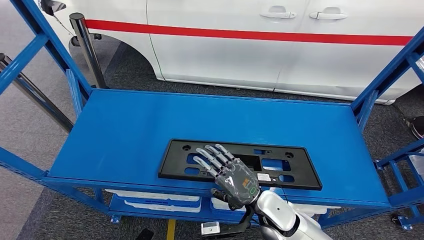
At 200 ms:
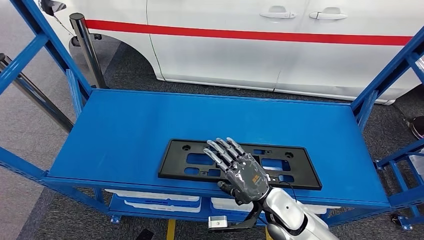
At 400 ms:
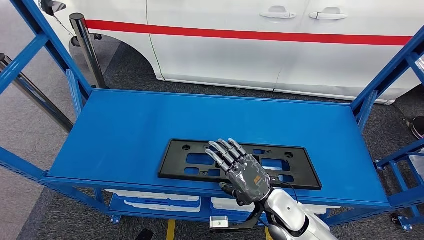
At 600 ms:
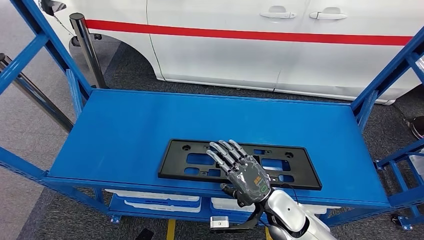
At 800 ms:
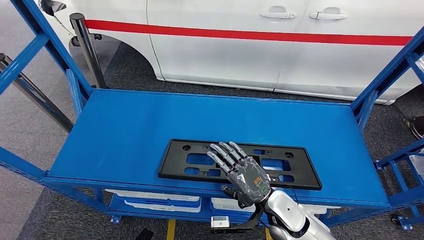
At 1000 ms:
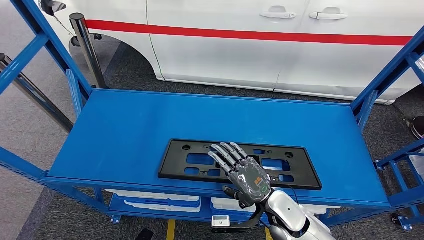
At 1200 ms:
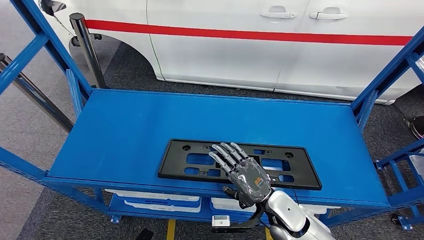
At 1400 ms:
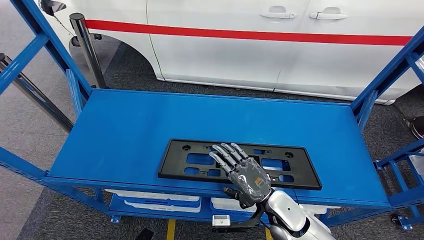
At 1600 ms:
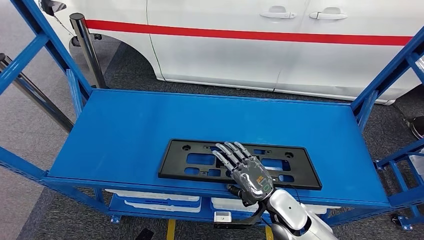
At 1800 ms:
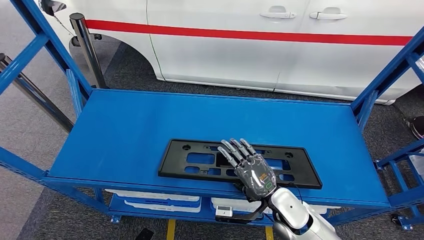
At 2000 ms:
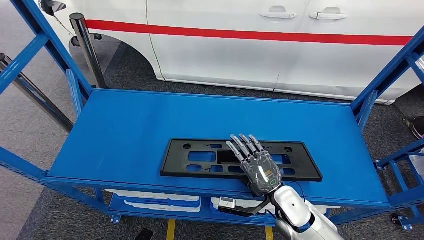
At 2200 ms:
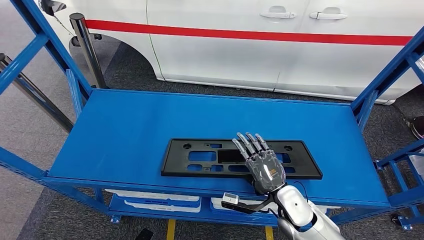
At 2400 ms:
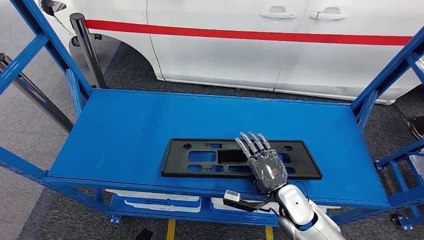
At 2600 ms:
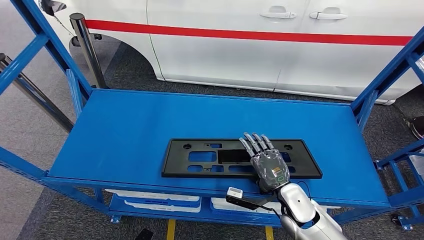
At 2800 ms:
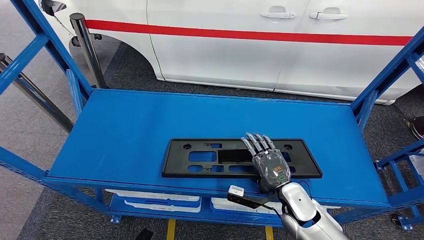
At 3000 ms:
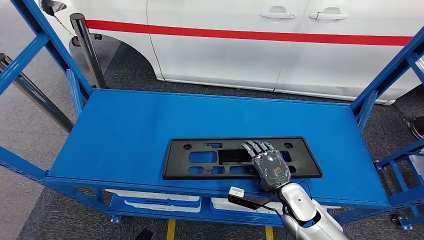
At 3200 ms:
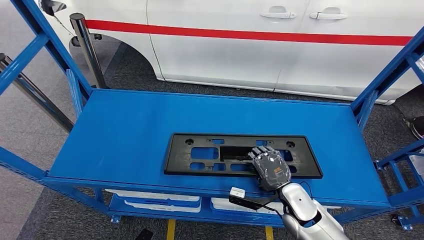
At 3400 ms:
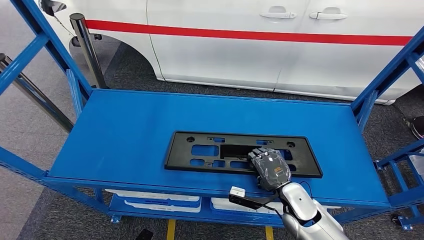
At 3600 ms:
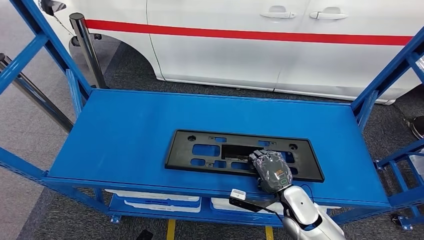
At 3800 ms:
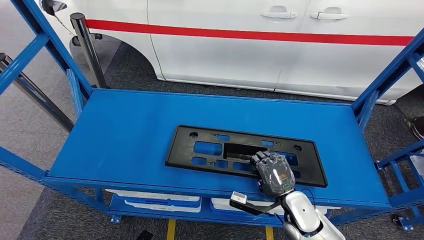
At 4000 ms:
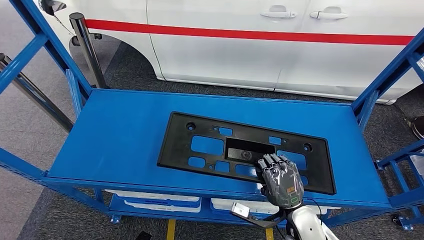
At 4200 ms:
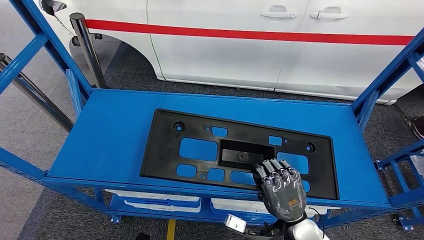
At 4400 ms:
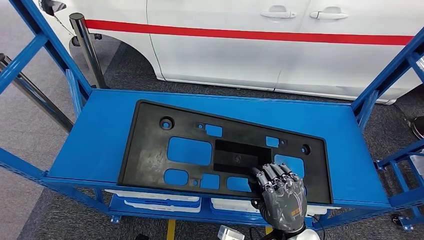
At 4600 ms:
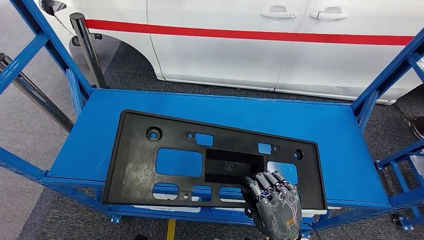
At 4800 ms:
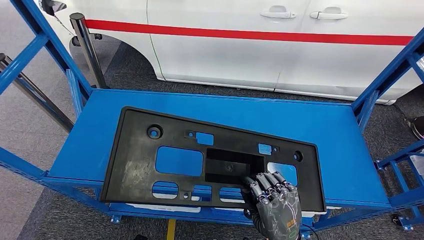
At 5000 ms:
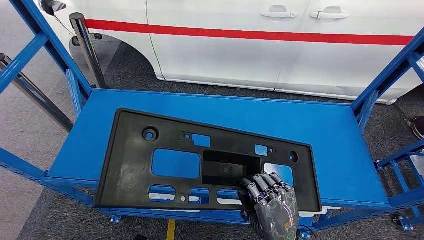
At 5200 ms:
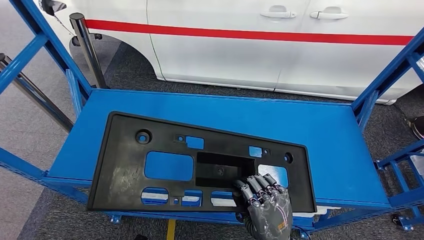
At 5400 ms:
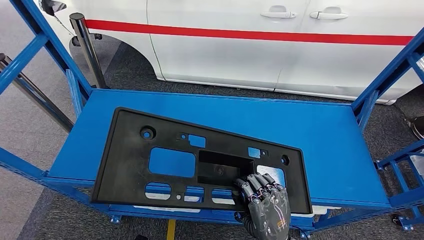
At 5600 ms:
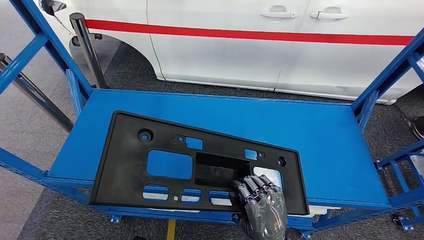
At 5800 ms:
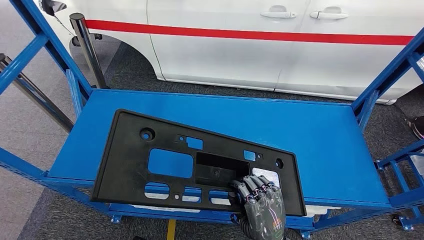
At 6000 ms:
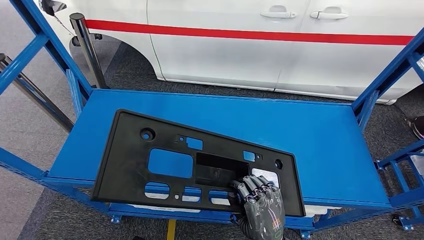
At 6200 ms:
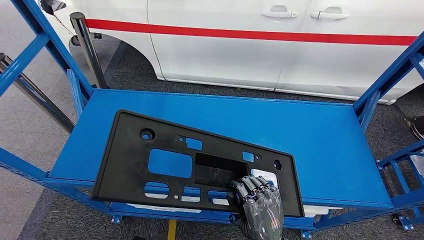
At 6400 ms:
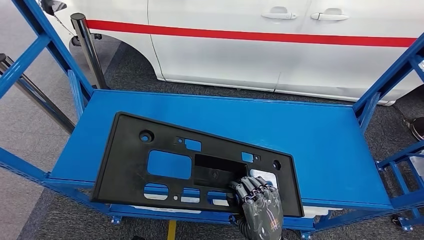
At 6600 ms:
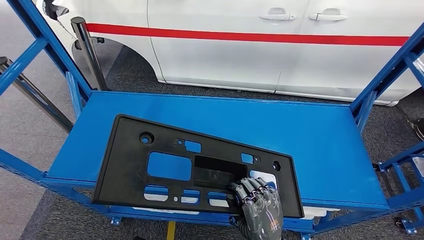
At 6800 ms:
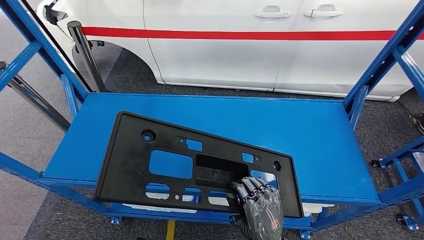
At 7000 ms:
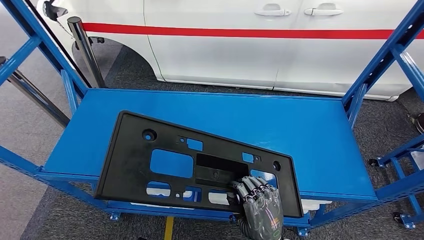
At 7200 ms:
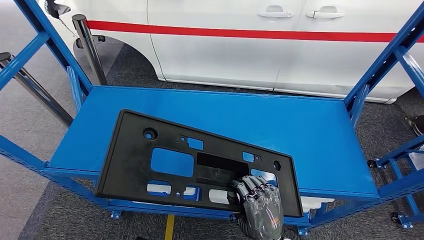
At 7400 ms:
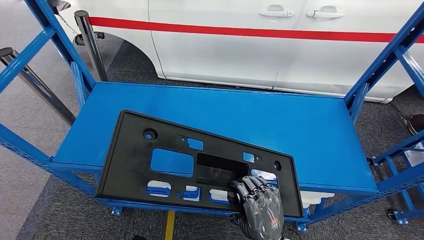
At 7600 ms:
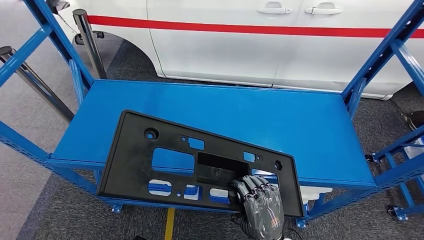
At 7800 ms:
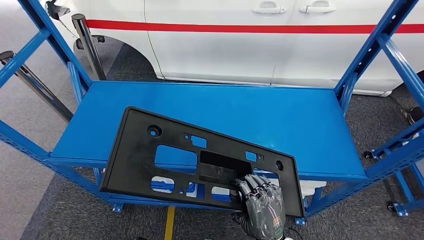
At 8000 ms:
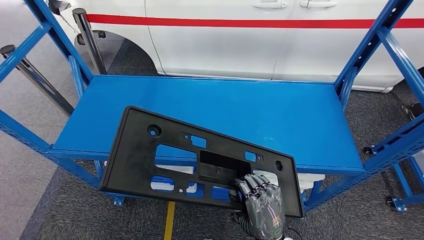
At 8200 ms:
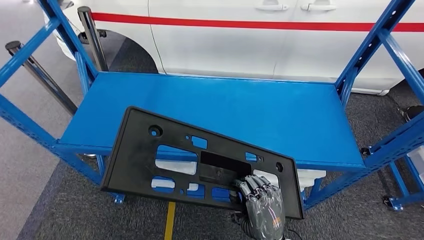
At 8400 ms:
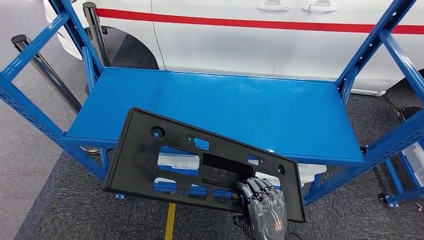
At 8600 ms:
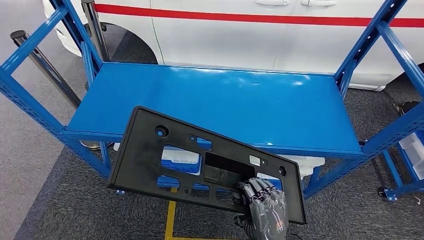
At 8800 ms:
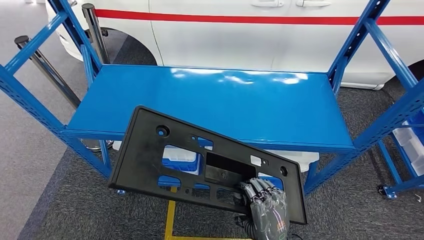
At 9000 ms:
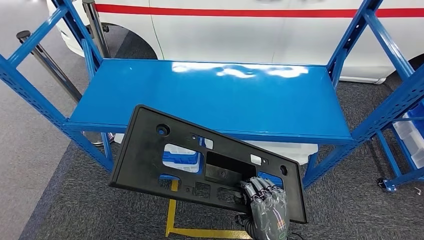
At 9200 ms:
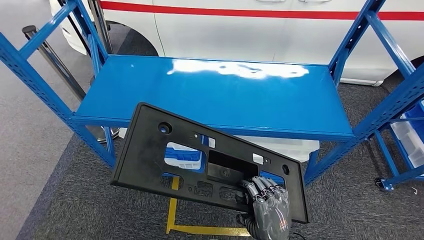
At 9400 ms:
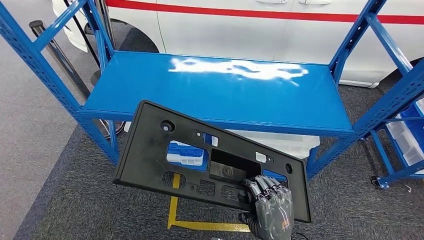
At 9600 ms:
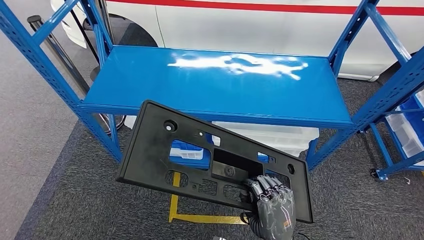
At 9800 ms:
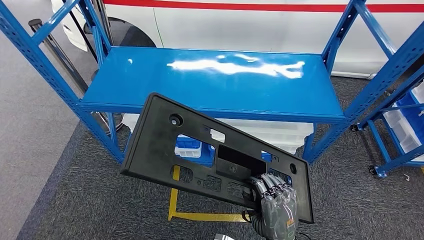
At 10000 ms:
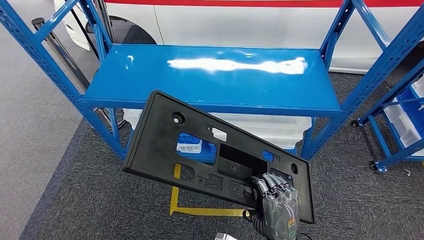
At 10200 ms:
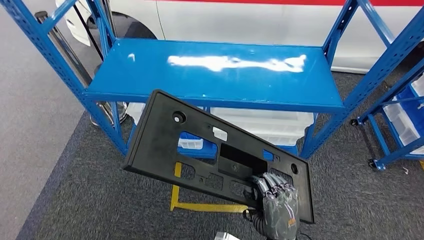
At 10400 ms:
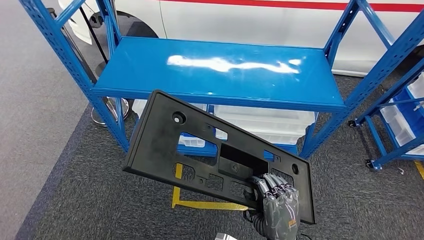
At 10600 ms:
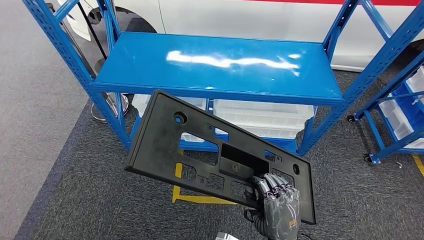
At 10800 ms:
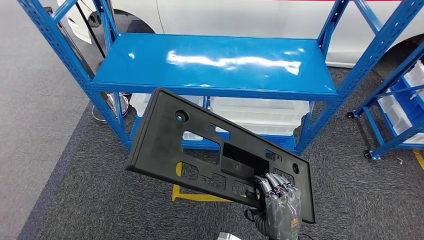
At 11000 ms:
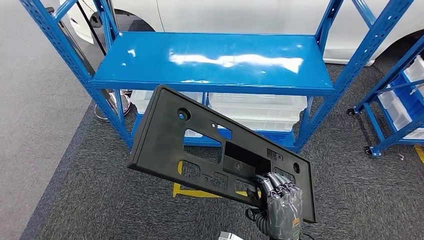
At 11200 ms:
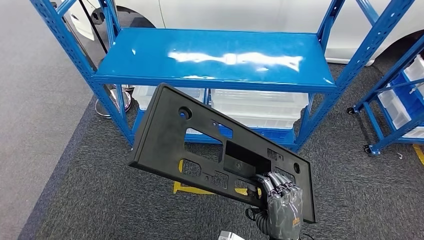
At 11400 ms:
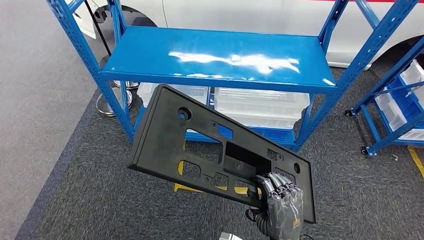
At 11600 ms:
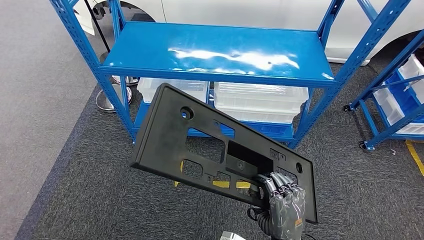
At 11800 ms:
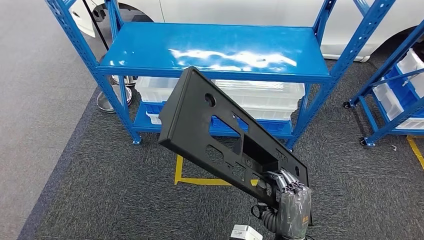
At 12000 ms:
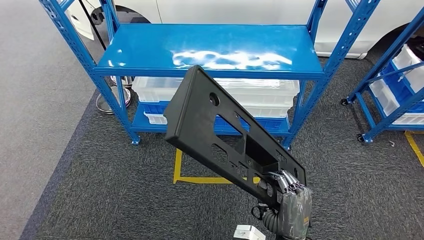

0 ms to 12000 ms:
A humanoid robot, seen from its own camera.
Step, 0 ms to 5200 ms: Pick up the large material from the shelf.
0 ms to 1600 ms: The hands stay close to where they were, moving slightly.
1600 ms to 3000 ms: The right hand moves about 5 cm.
3000 ms to 4400 ms: The right hand is displaced backward and upward by about 10 cm.
4400 ms to 6000 ms: The right hand changes place by about 5 cm.

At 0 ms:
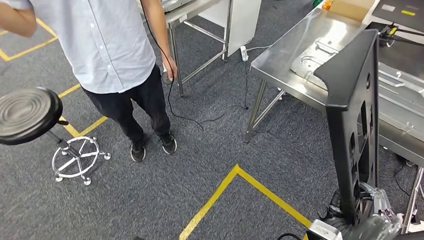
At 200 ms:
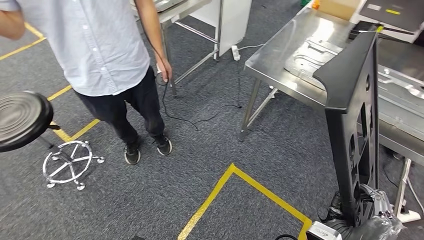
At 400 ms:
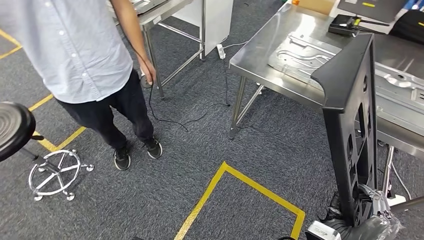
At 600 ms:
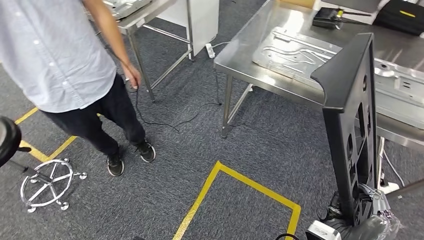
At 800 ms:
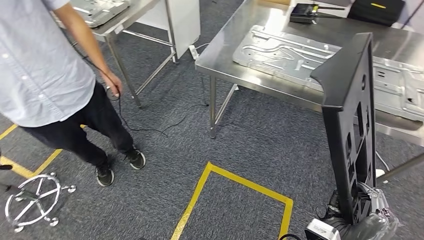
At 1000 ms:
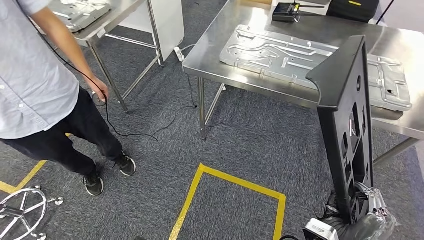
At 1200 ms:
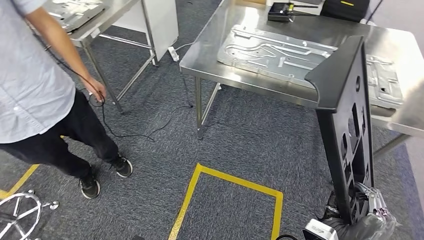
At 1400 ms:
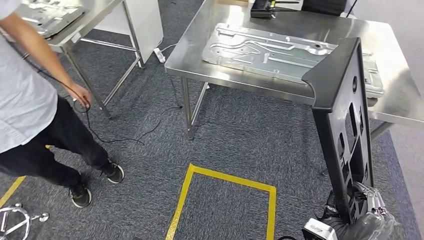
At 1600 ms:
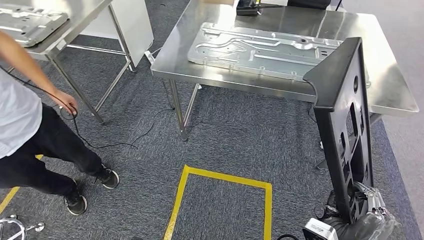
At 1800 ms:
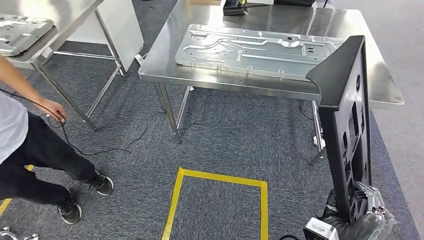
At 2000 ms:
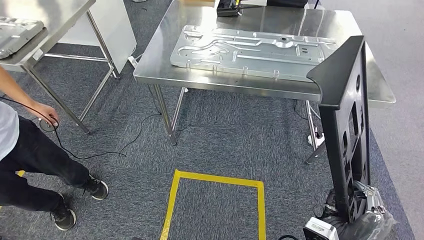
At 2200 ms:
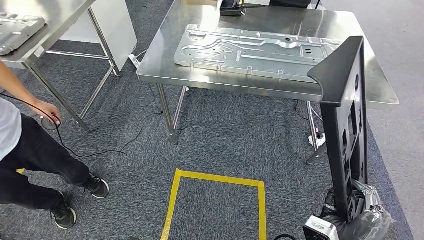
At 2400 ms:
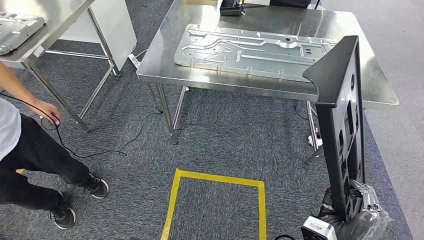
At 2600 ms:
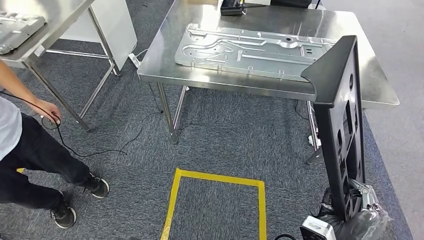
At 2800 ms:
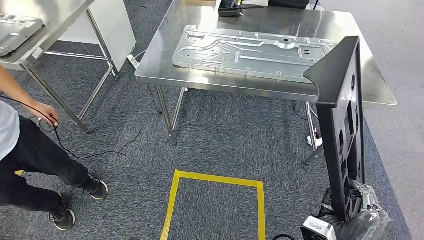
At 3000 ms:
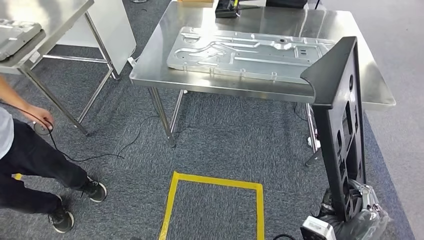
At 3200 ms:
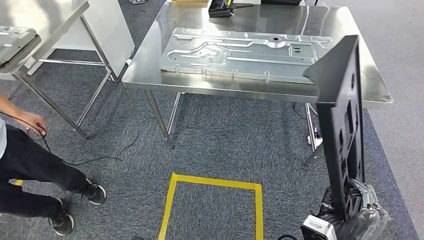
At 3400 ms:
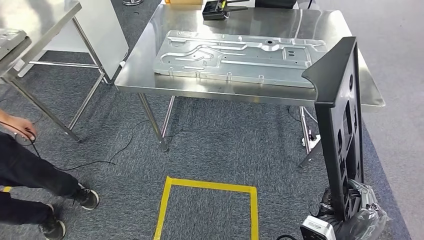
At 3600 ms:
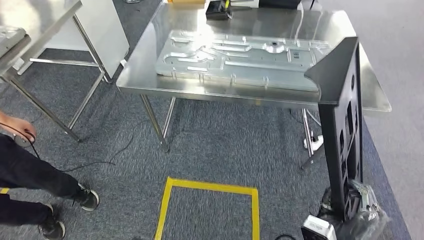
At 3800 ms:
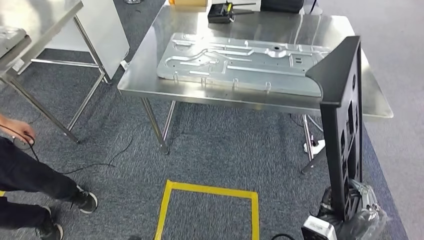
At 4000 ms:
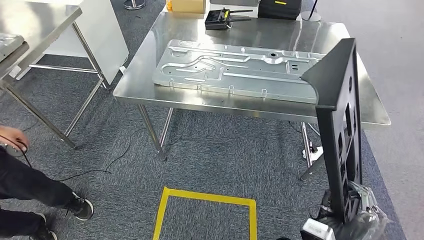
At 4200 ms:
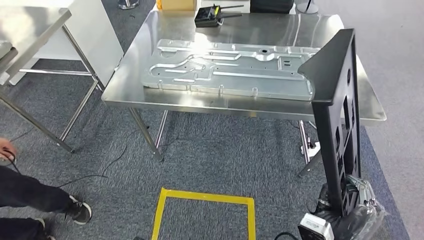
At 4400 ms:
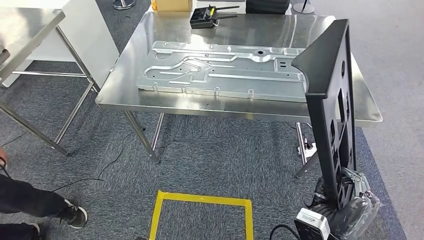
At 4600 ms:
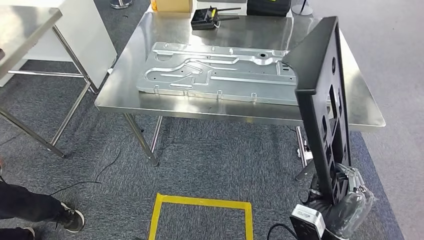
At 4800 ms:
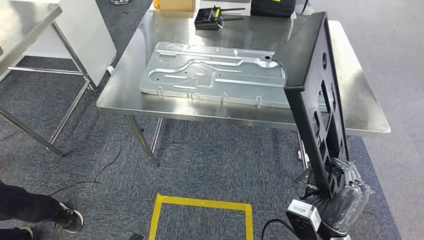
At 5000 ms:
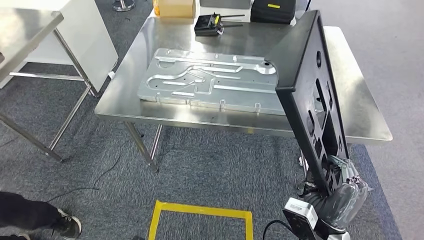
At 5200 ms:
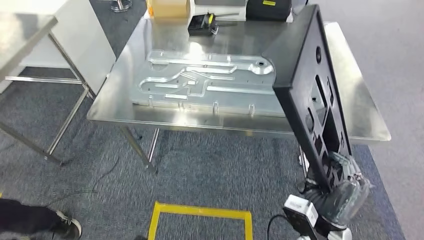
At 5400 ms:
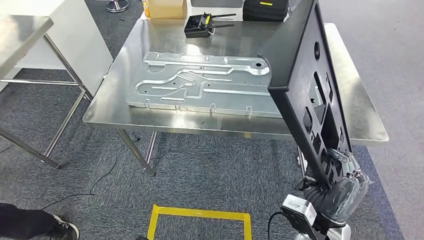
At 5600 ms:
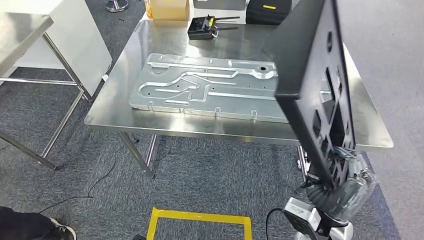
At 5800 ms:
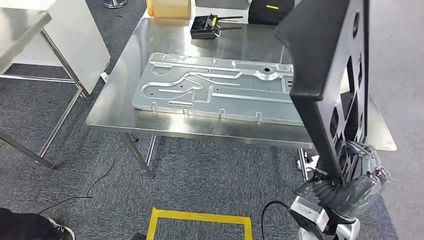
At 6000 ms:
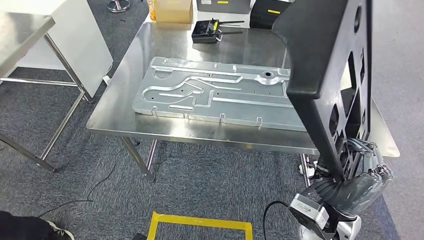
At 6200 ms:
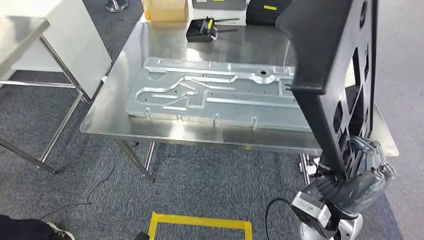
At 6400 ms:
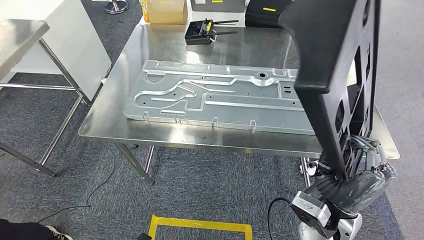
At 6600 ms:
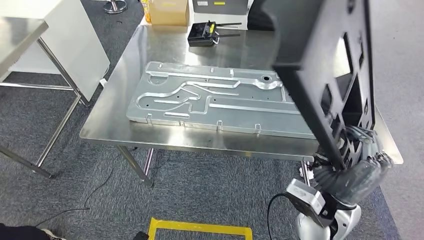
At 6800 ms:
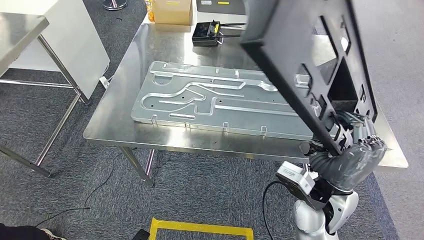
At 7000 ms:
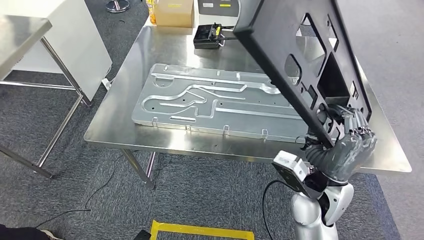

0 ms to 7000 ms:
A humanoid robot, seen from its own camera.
Step, 0 ms to 6200 ms: Move the large material to the workbench.
